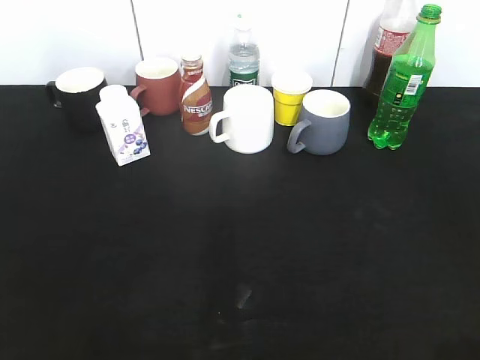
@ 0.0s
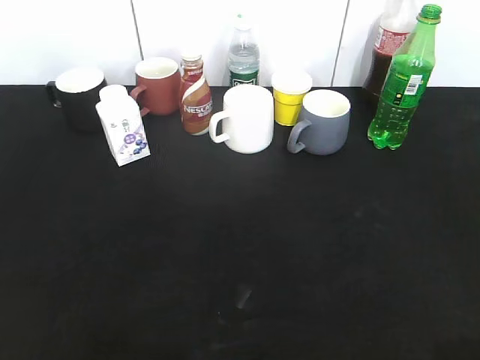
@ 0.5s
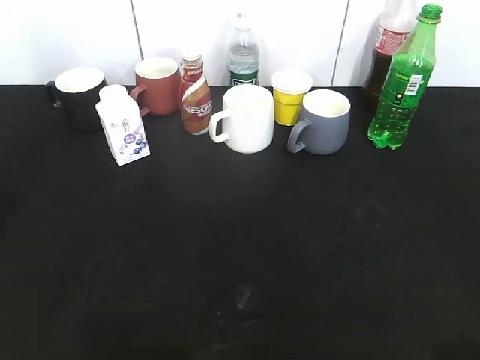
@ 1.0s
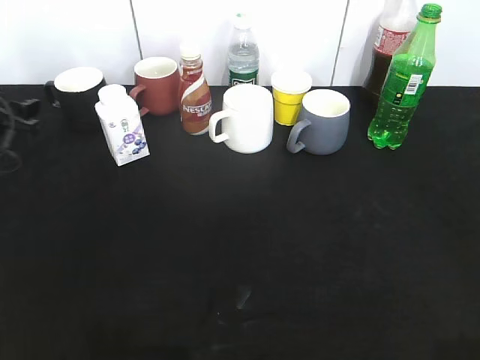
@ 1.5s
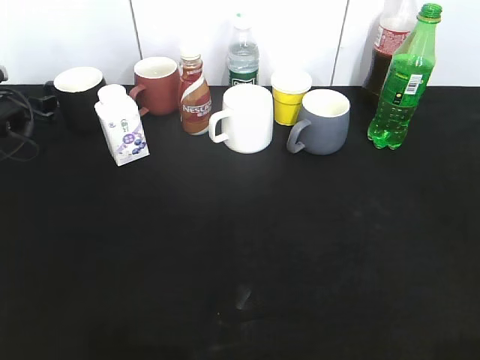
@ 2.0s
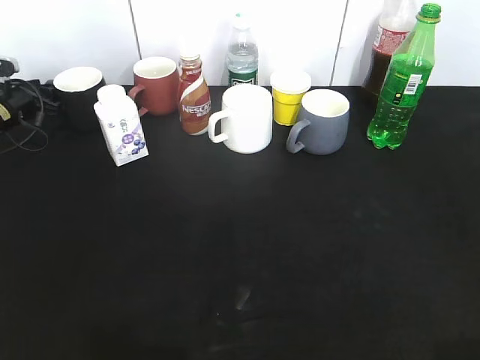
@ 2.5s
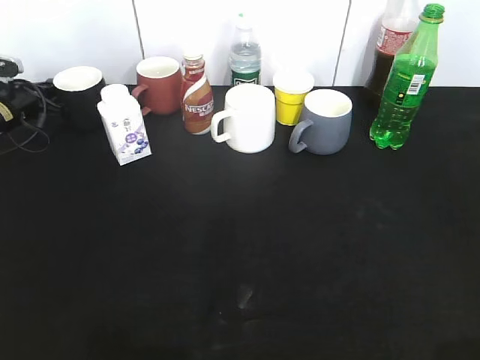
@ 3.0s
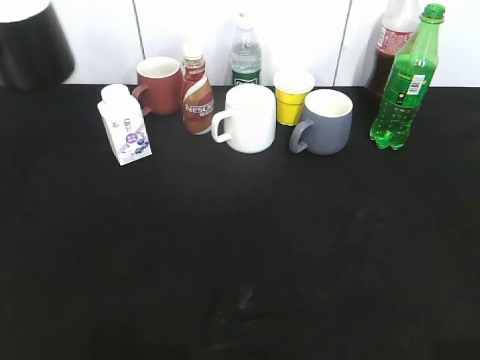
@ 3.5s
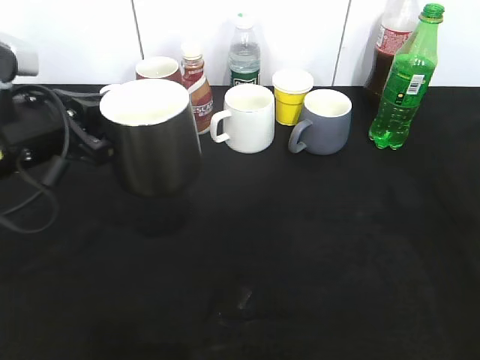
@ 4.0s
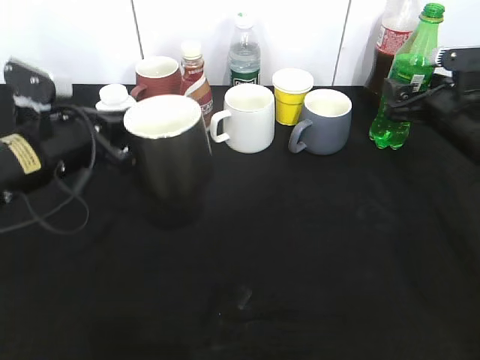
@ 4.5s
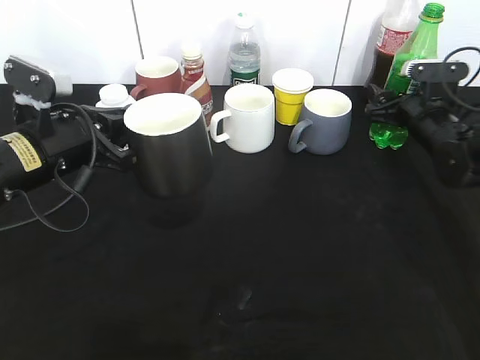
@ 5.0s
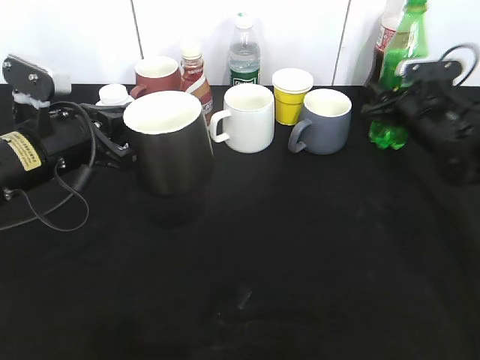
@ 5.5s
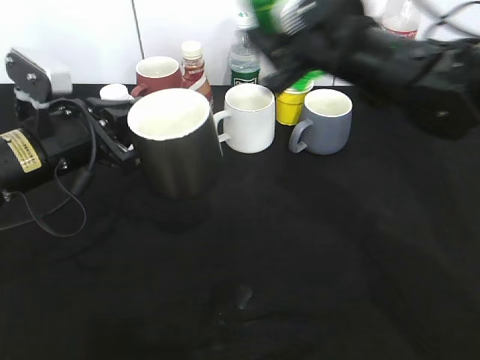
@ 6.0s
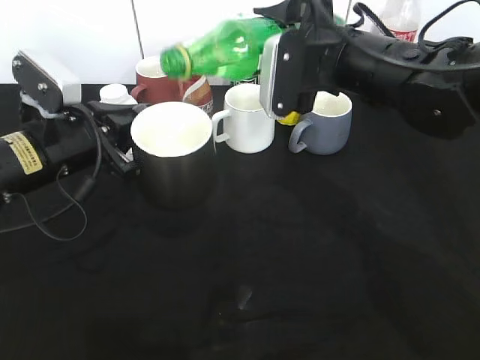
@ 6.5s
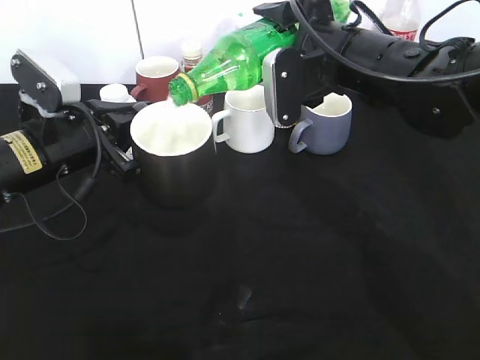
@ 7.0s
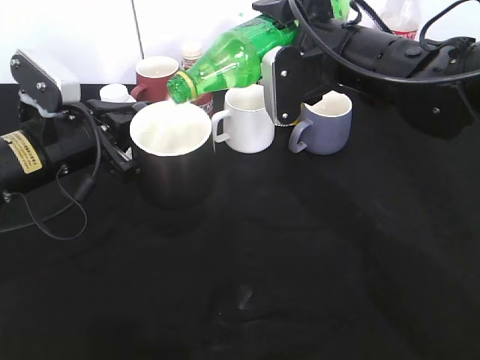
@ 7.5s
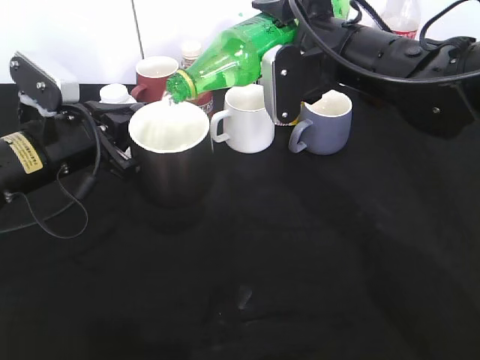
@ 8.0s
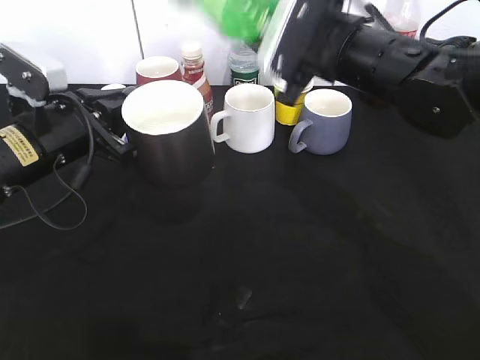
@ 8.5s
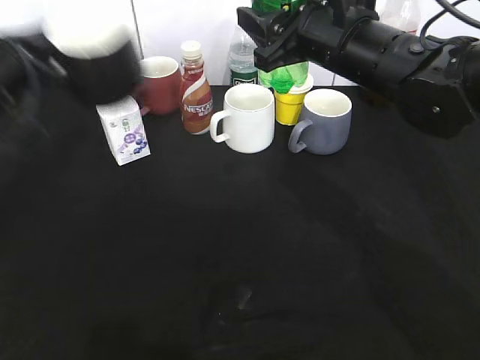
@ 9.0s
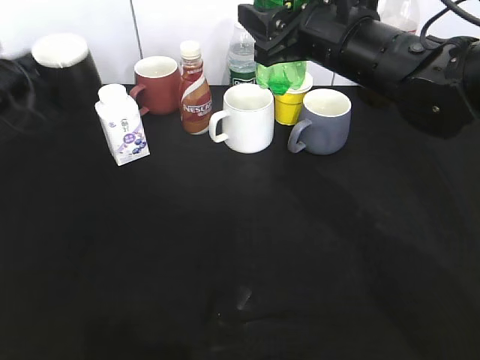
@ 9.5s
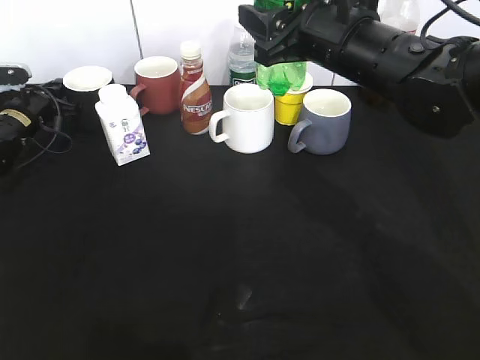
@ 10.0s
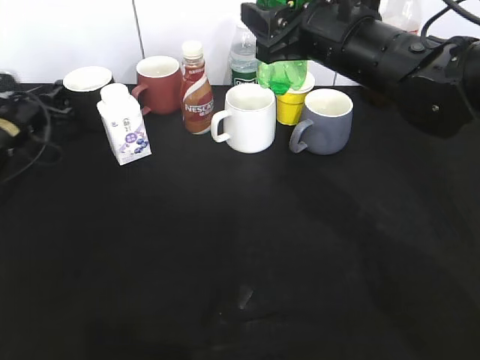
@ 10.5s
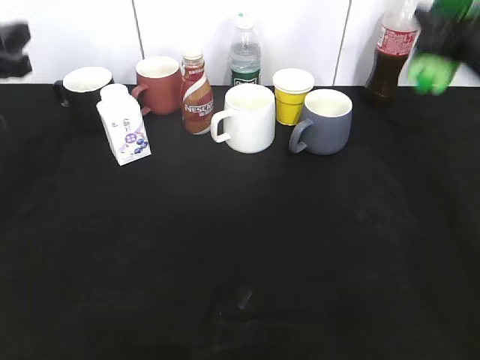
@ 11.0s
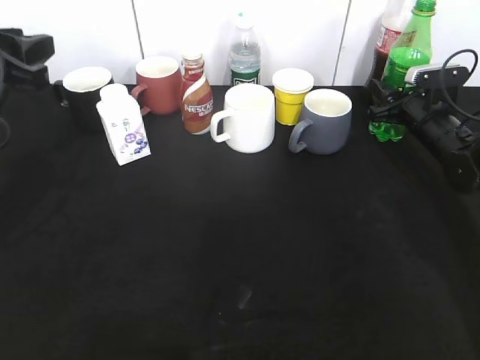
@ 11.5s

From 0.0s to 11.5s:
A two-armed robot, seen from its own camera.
Step, from 0.0s to 2.5s: Grasp the black cup with left gripper.
Step, from 3.0s to 3.5s: Lift the black cup with left gripper.
Step, from 4.0s to 5.0s: Grasp the bottle with sprite with right gripper.
Step, from 5.5s to 8.0s: Pour the sprite from bottle to cup with right gripper.
Step, from 8.5s to 10.0s: Place the black cup on the table with left gripper.
From 0.0s to 2.0s: The left gripper is displaced forward and downward by some 50 cm.
From 2.0s to 4.0s: The left gripper heads backward, to the right and upward, covering approximately 30 cm, and closes its fingers. The right gripper shifts approximately 20 cm forward, and opens its fingers.
From 4.0s to 6.0s: The right gripper travels to the left and forward by roughly 25 cm, and closes its fingers.
From 7.5s to 9.5s: The left gripper is displaced forward and to the left by about 25 cm.
From 9.5s to 11.5s: The right gripper is displaced to the right, downward and forward by about 30 cm, while the left gripper moves backward, upward and to the right, approximately 25 cm, and opens.

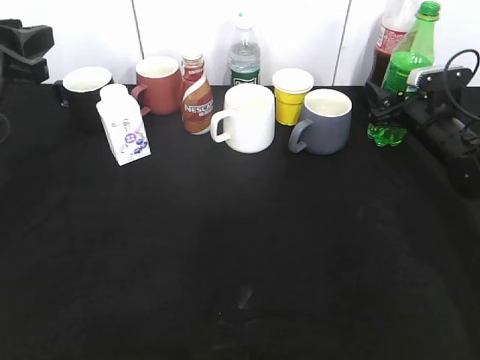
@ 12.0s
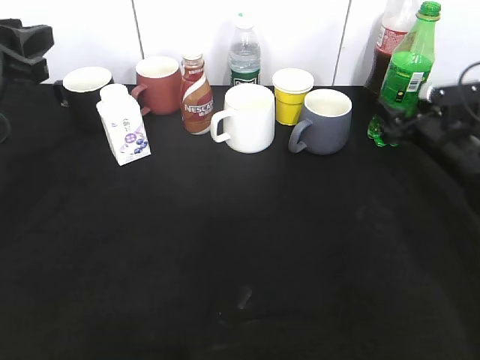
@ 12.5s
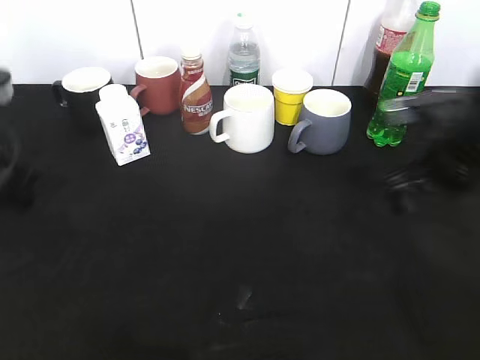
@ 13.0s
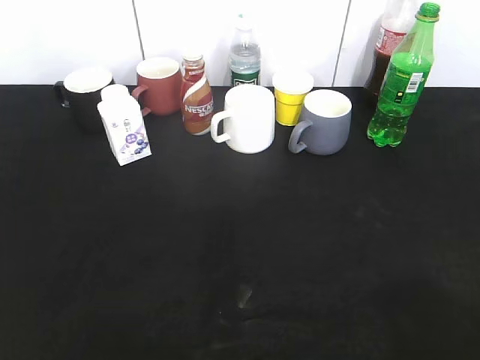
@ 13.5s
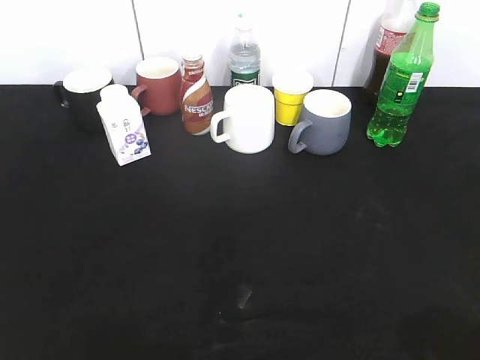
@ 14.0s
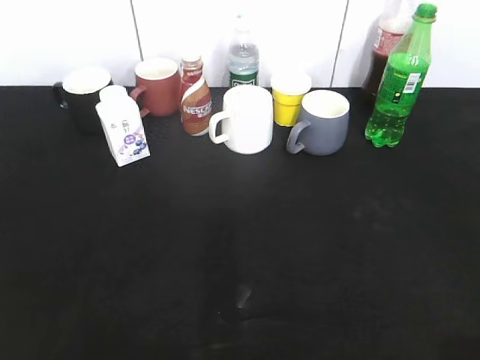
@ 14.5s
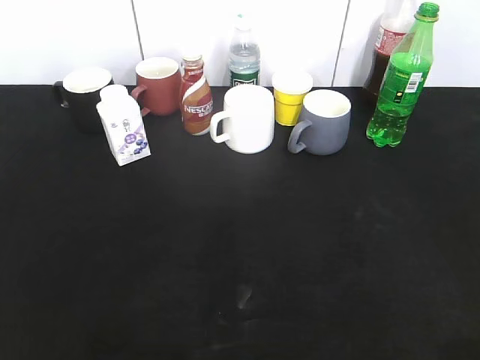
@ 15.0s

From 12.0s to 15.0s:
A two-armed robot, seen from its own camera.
From 12.0s to 13.5s: The right gripper is displaced backward and upward by about 50 cm. Meanwhile the left gripper goes approximately 25 cm backward.
